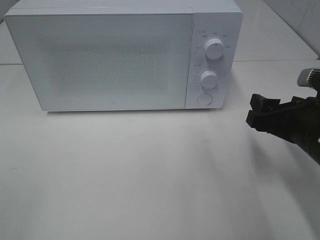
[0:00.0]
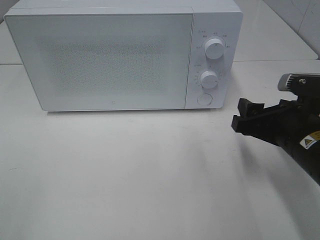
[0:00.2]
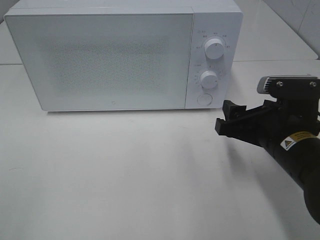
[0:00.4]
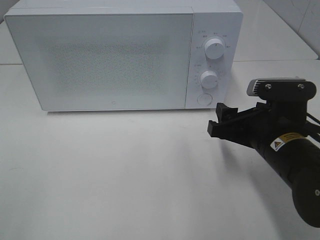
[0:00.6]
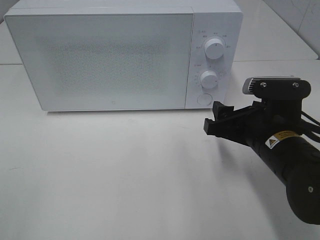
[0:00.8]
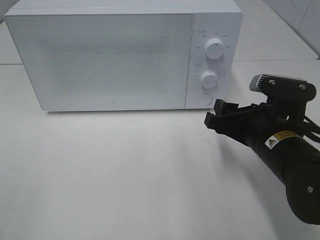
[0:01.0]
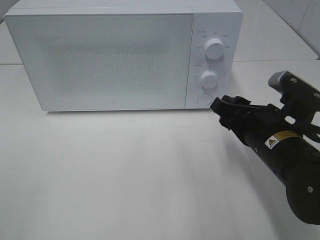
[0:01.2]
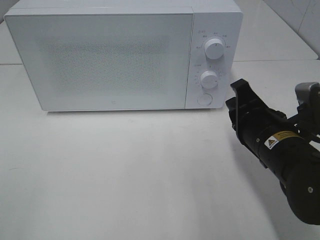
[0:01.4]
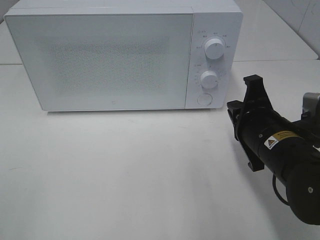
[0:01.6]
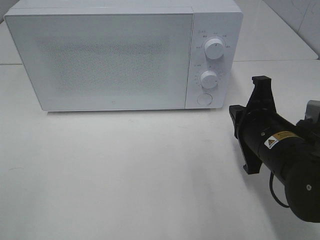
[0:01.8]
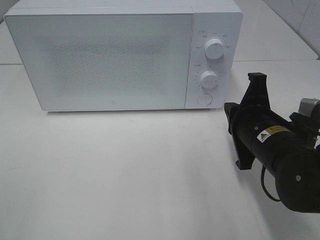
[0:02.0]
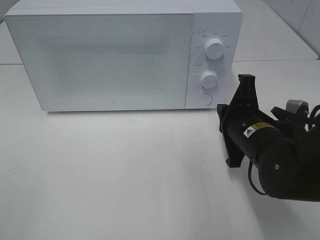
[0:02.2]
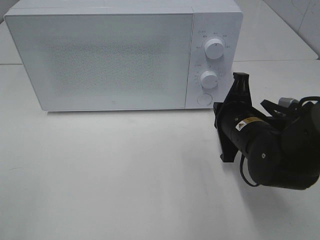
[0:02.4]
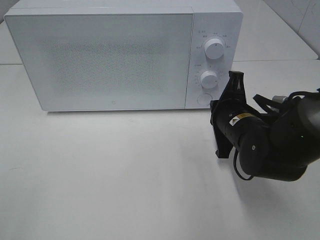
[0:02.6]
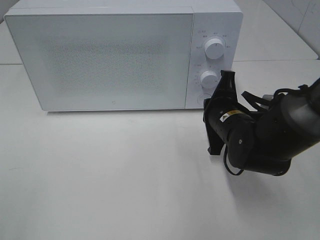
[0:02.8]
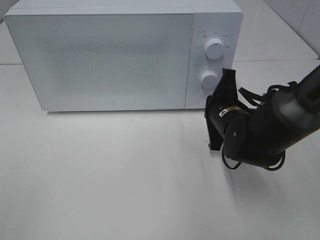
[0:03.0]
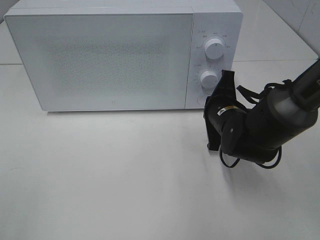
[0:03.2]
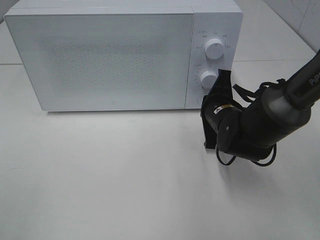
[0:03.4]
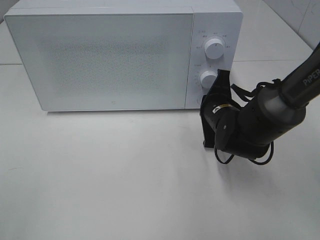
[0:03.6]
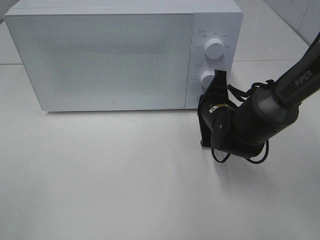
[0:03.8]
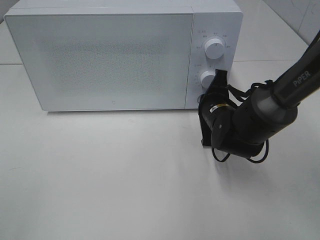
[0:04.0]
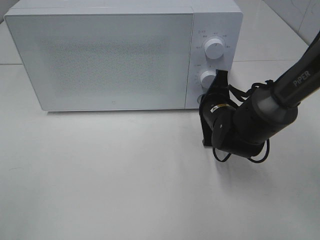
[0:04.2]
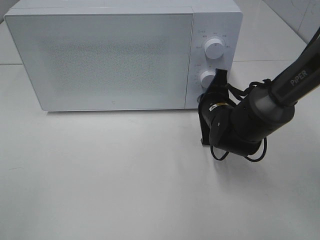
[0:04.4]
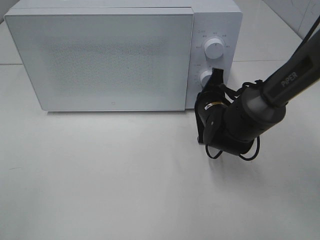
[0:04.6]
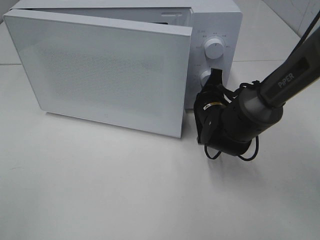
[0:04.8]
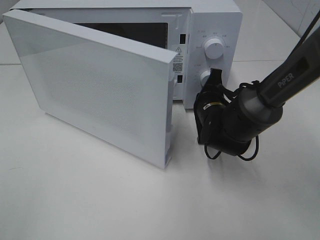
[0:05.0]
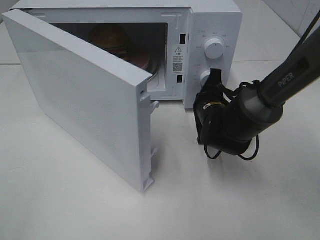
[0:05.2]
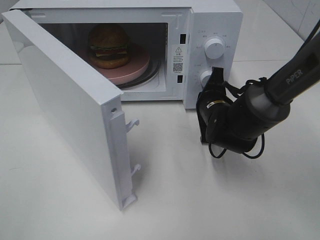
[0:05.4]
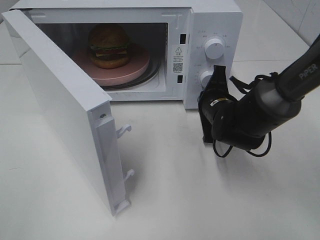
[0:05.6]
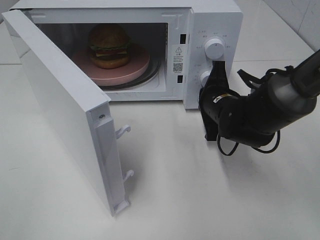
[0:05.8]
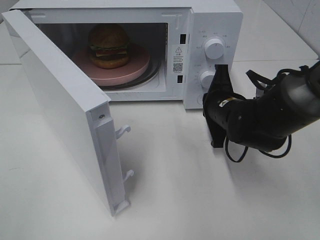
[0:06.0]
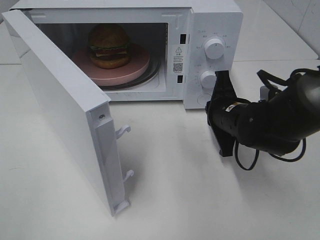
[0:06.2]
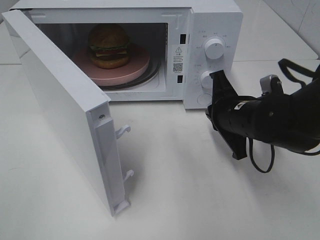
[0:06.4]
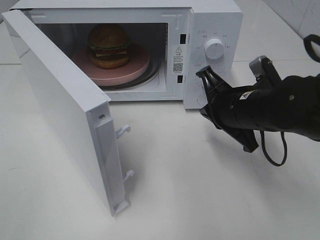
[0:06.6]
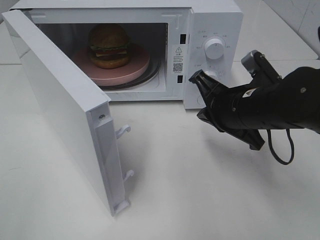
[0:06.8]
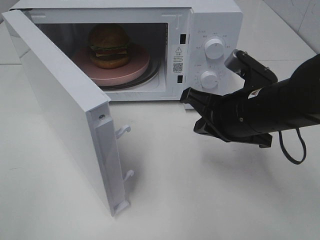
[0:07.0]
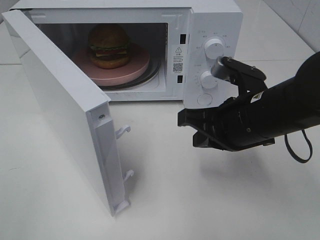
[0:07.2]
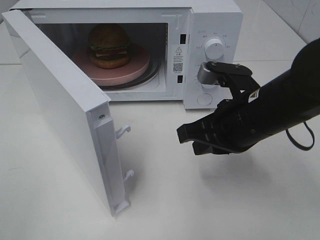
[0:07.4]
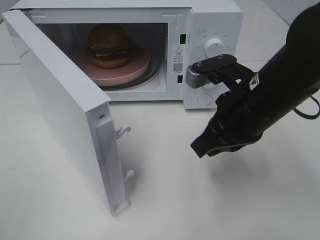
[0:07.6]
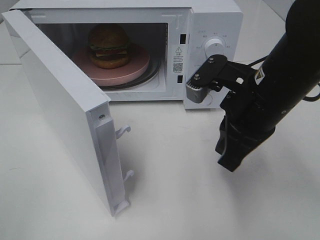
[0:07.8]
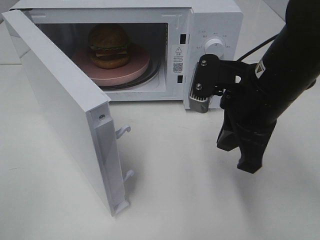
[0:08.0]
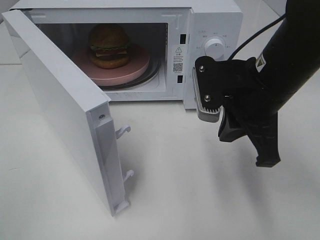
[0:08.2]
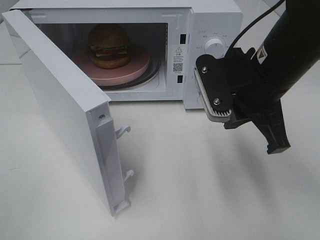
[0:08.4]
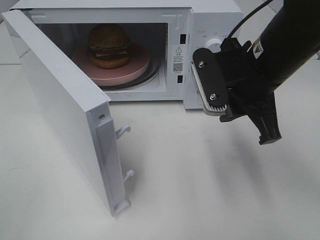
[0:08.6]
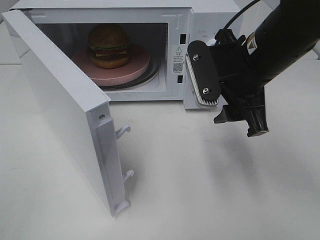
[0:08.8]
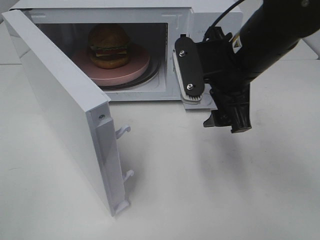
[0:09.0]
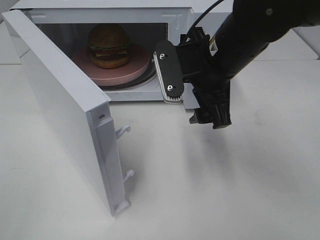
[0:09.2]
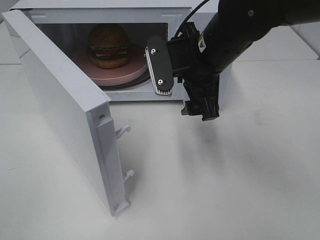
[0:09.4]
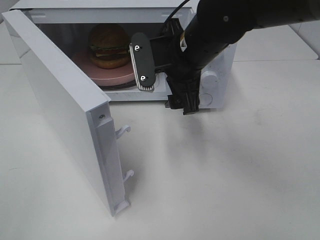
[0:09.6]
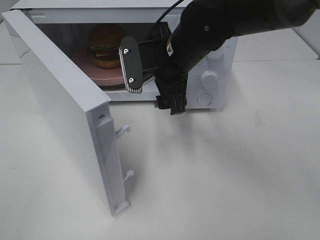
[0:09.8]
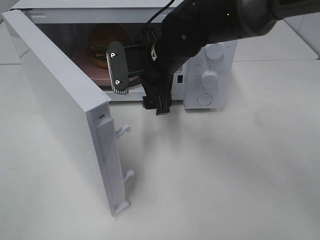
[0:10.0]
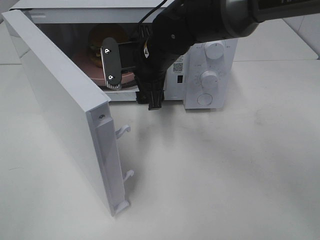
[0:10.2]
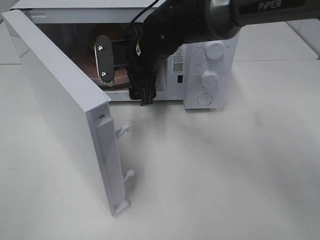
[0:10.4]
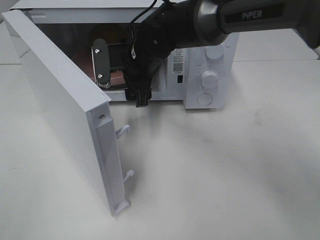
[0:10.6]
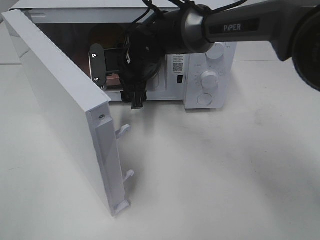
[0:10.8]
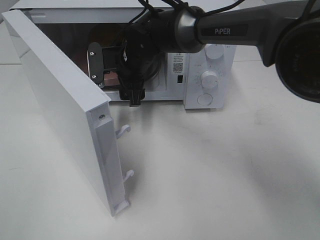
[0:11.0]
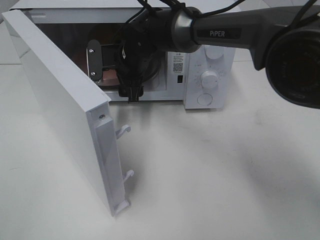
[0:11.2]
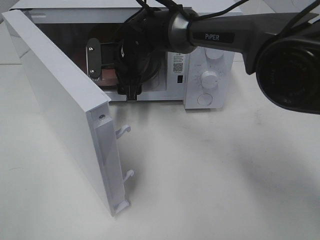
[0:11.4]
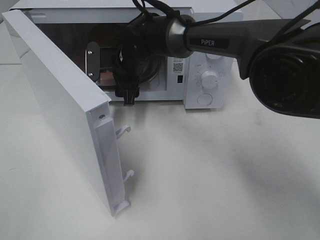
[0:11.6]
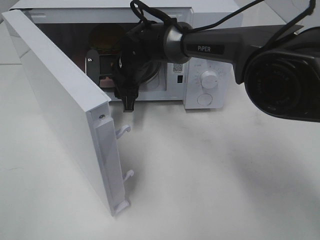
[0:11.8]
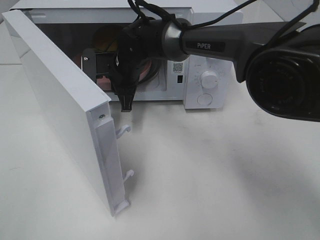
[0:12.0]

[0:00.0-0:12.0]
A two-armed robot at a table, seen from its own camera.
Task of the whole recording: Heat the burger.
Step, 0:00.0 to 0:06.2: Right hand: press the switch.
0:00.0 to 0:01.6: The right gripper heads to the left, covering roughly 5 cm, and closes up.
0:01.6 to 0:03.0: The right gripper is displaced forward by some 10 cm.
0:03.0 to 0:04.4: There are only small adjustments of the grippers.
0:06.0 to 0:07.6: The right gripper heads upward and backward, covering approximately 15 cm.
0:07.6 to 0:09.0: The right gripper moves about 5 cm, and opens its fingers.
0:09.0 to 0:10.4: The right gripper goes roughly 15 cm to the left, forward and downward.
0:10.4 to 0:12.0: The right gripper changes place by about 5 cm, and closes.

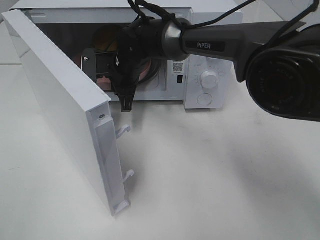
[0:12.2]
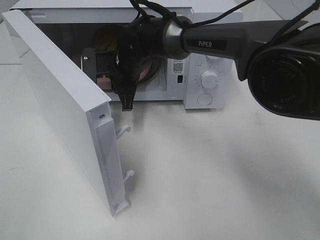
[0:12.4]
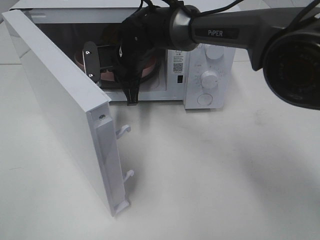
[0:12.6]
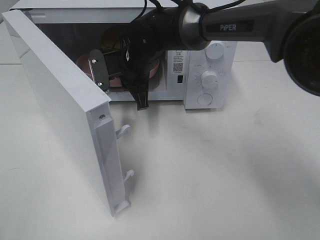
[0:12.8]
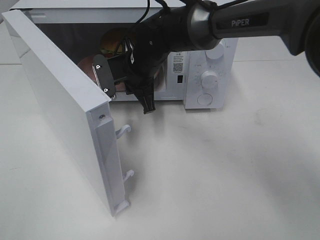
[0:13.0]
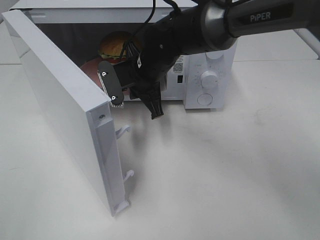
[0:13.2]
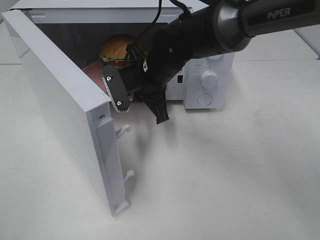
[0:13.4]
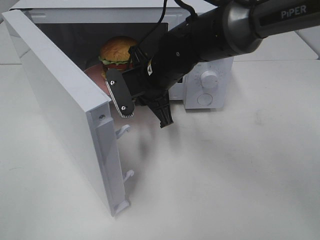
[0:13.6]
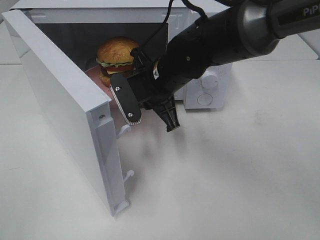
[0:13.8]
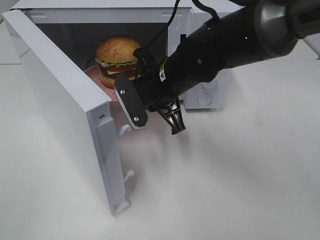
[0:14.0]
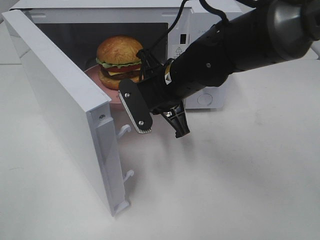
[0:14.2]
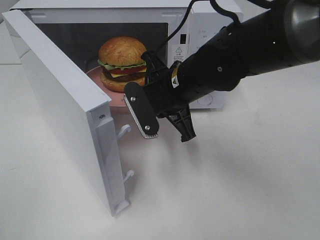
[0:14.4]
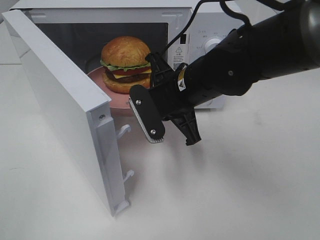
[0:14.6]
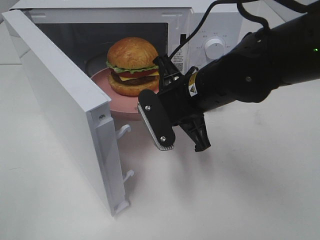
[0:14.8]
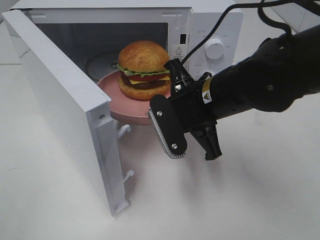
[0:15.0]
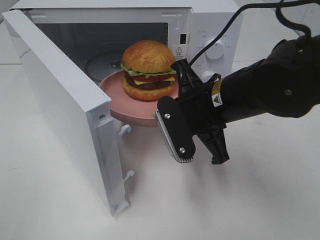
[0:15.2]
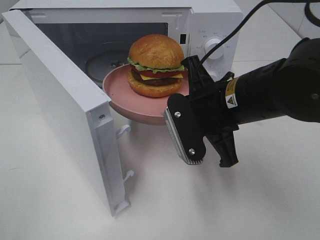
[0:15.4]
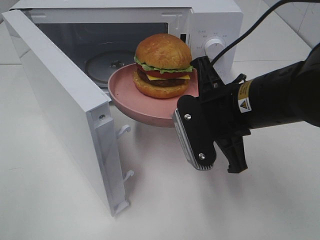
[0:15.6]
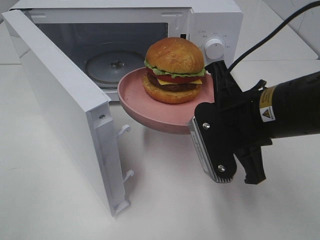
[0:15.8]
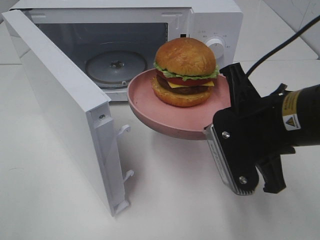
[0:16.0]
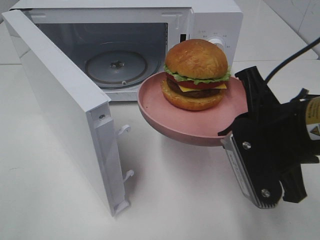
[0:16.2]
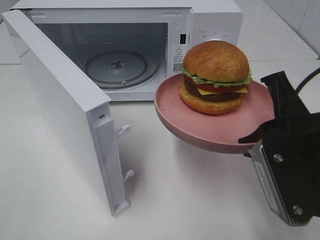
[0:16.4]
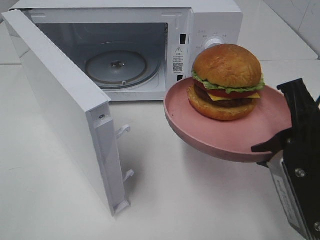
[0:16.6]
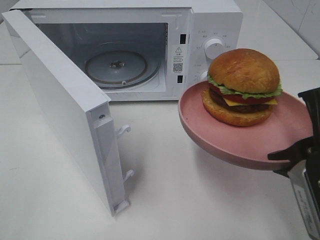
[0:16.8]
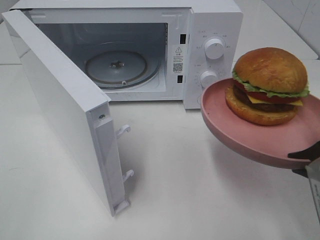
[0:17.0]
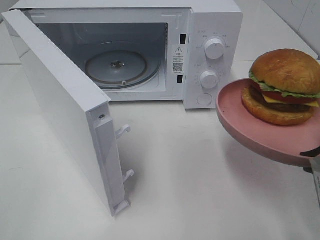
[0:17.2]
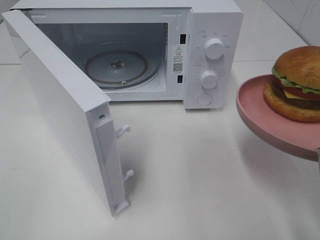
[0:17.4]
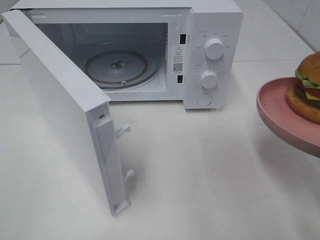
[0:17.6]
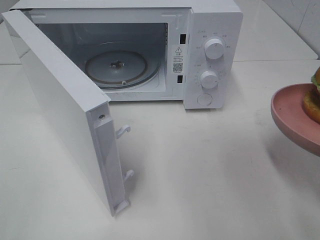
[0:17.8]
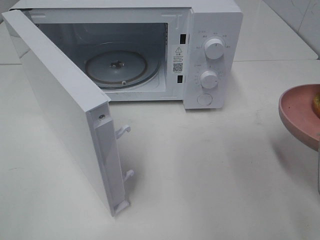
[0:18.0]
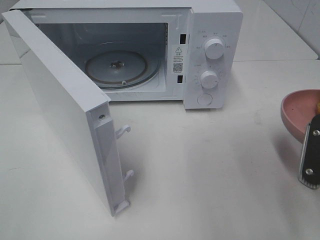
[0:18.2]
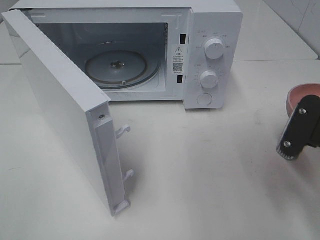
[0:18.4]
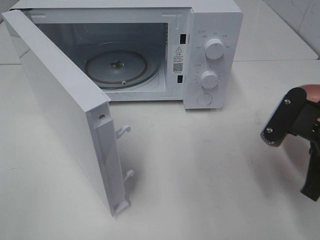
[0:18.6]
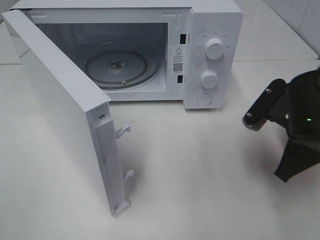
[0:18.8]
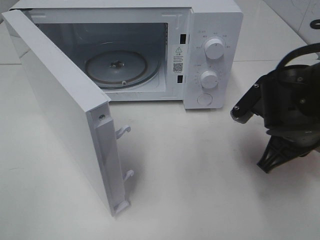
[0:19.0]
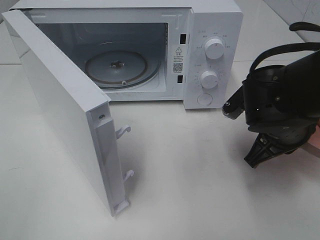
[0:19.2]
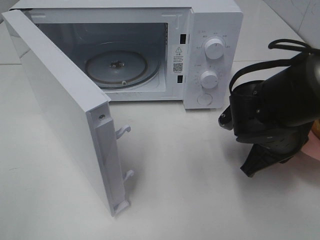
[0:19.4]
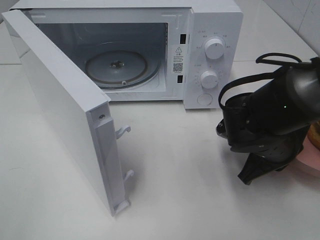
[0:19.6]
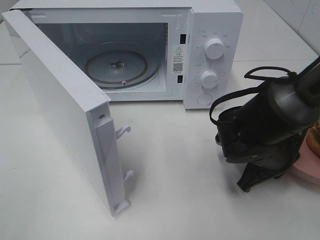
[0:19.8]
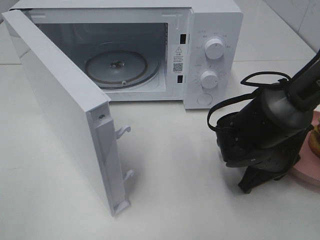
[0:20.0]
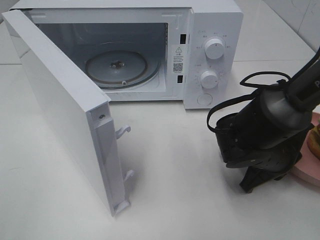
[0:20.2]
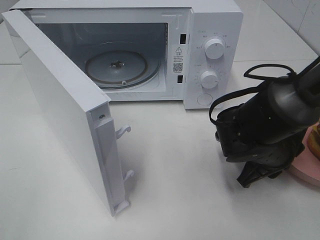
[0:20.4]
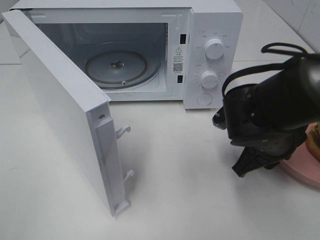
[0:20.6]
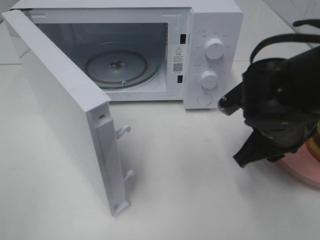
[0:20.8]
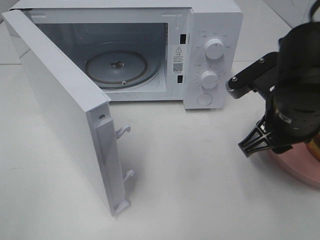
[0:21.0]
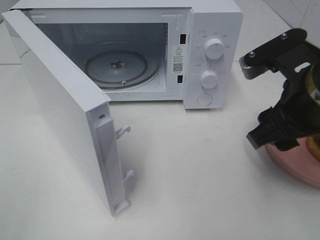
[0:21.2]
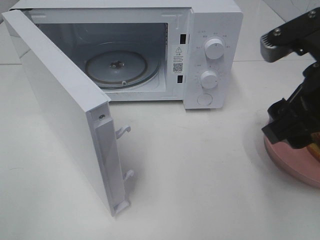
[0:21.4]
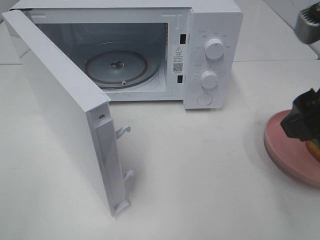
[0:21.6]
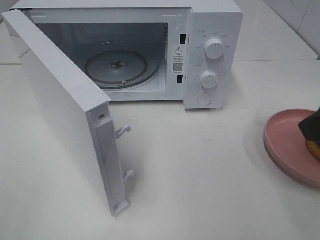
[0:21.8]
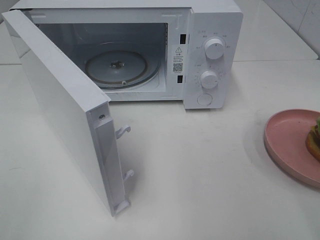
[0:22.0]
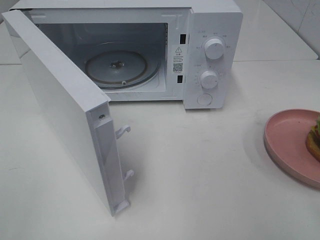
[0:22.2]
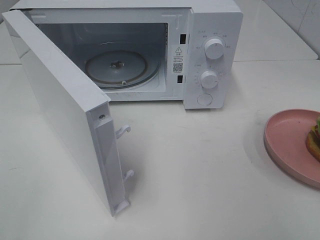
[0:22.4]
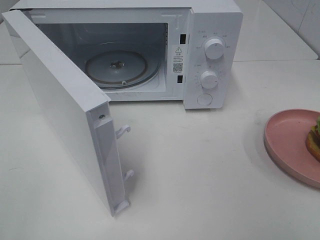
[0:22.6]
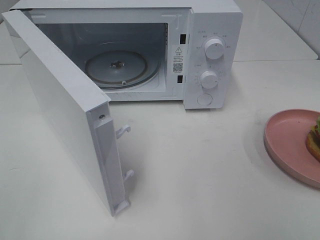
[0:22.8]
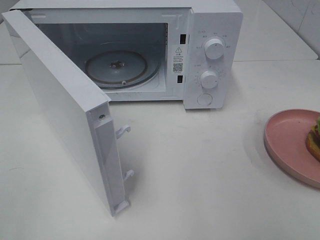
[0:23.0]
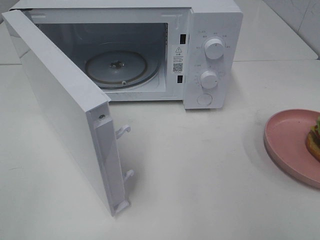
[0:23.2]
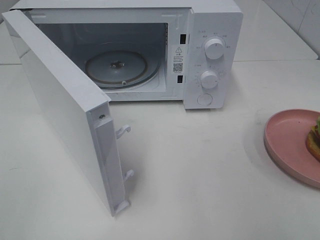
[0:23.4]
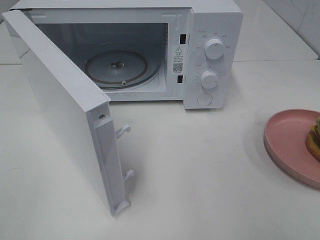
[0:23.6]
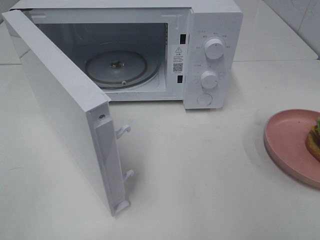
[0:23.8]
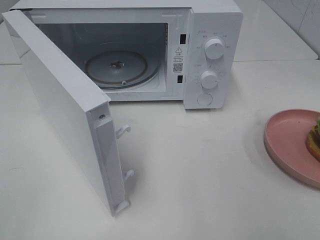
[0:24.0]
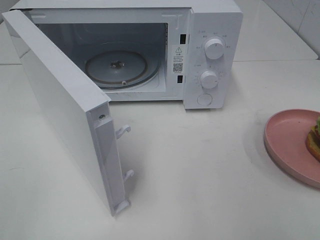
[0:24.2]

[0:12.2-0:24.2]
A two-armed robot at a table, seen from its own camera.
Task of the whole recording: Heat the burger.
Step, 0:12.6 to 0:21.0: Right hand: place the plate on the table.
0:12.2 to 0:13.8: The right gripper is displaced backward and to the right by some 10 cm.
0:13.8 to 0:15.2: The right gripper heads backward and to the right, covering about 10 cm.
0:15.2 to 0:16.6: The right gripper is displaced backward and to the right by about 15 cm.
0:16.6 to 0:18.2: The right gripper shifts by roughly 5 cm.
0:18.2 to 0:19.8: The right gripper goes about 20 cm downward, forward and to the left.
0:19.8 to 0:21.2: The right gripper heads upward, covering some 15 cm, and opens up.
0:21.2 to 0:22.6: The right gripper travels backward and to the right by approximately 20 cm.
